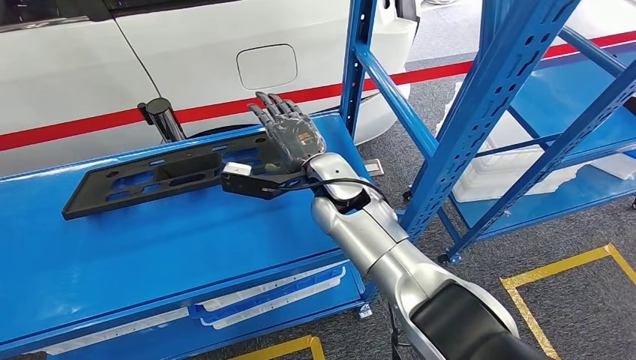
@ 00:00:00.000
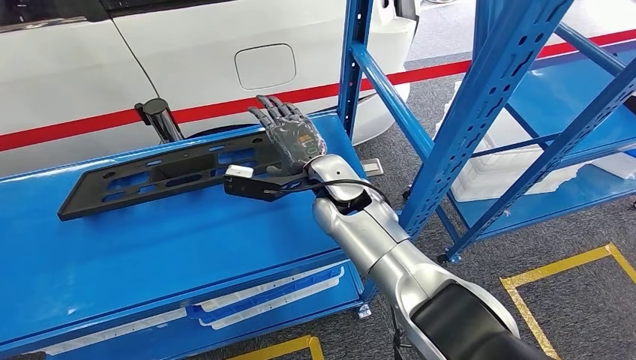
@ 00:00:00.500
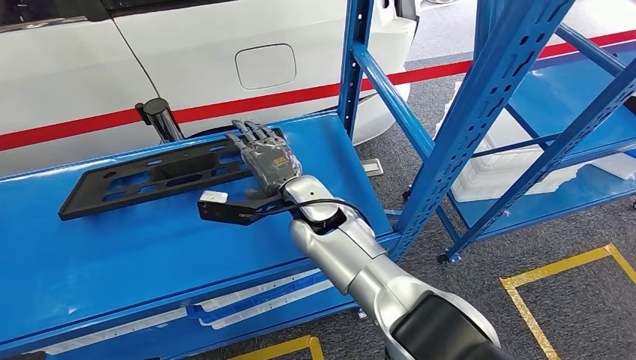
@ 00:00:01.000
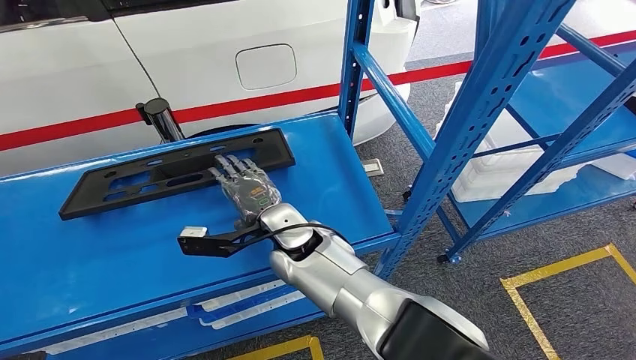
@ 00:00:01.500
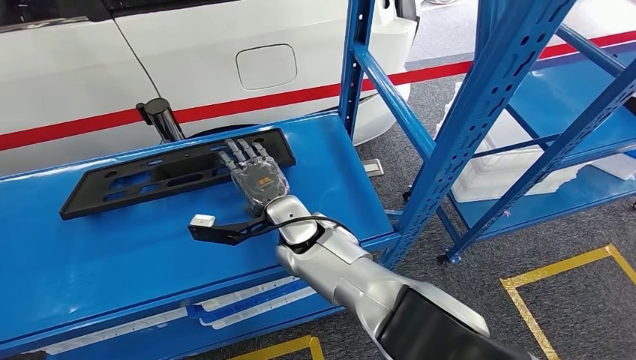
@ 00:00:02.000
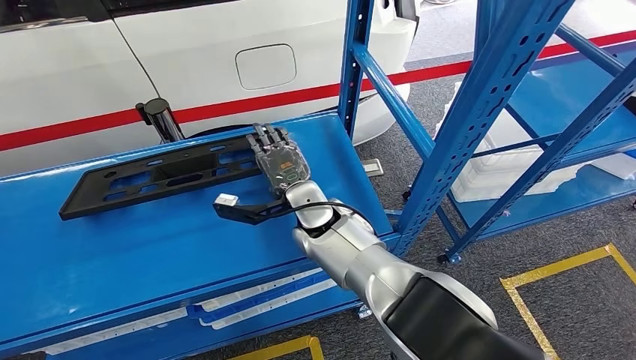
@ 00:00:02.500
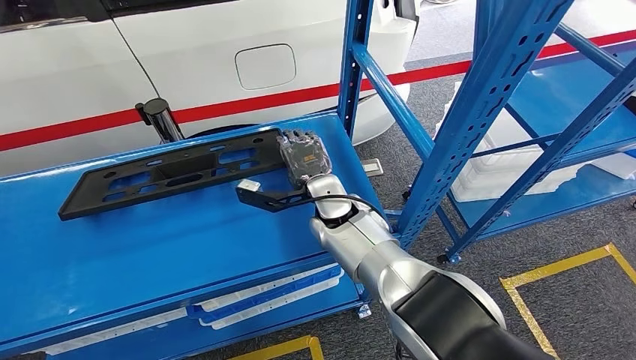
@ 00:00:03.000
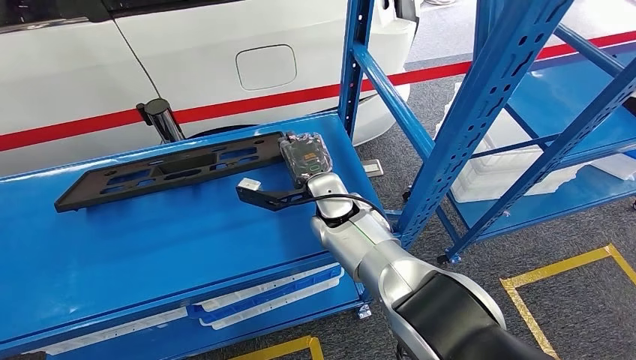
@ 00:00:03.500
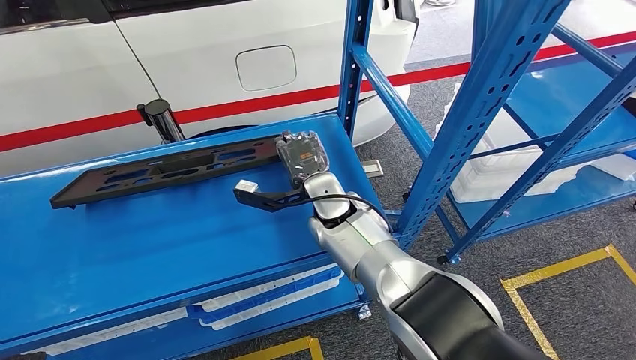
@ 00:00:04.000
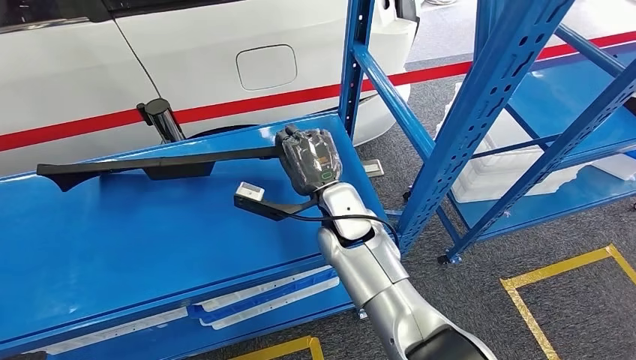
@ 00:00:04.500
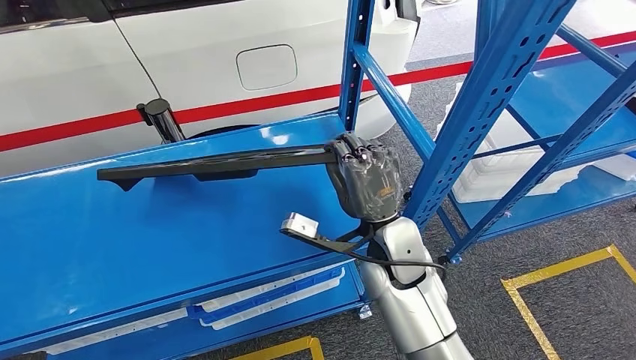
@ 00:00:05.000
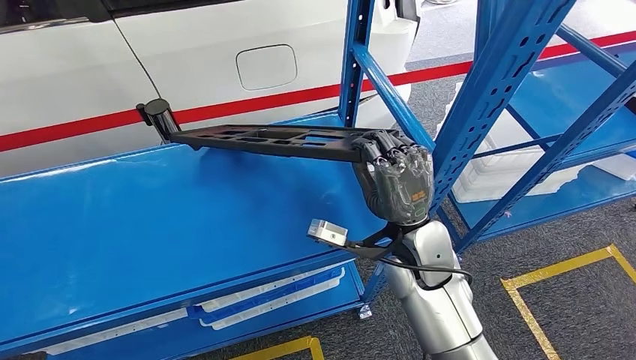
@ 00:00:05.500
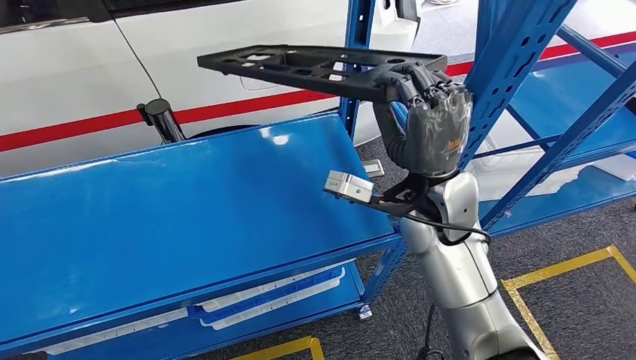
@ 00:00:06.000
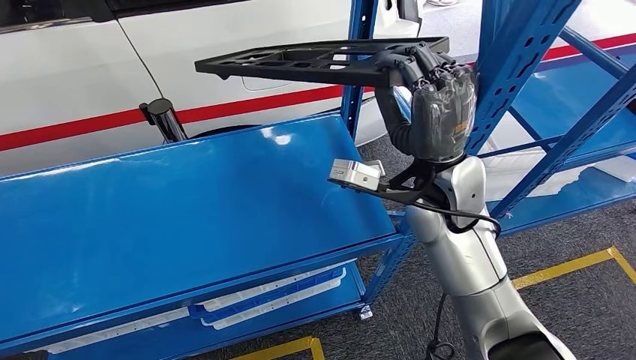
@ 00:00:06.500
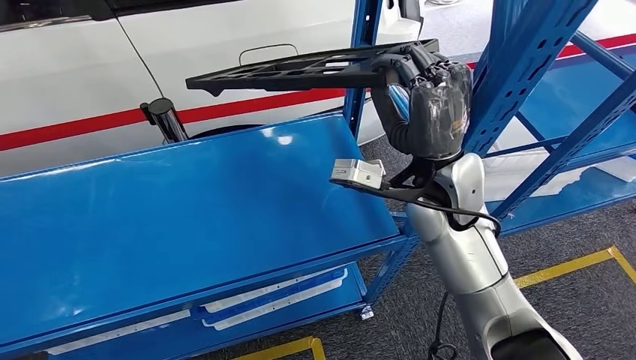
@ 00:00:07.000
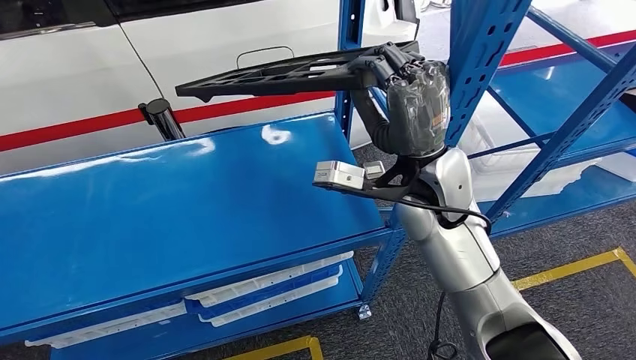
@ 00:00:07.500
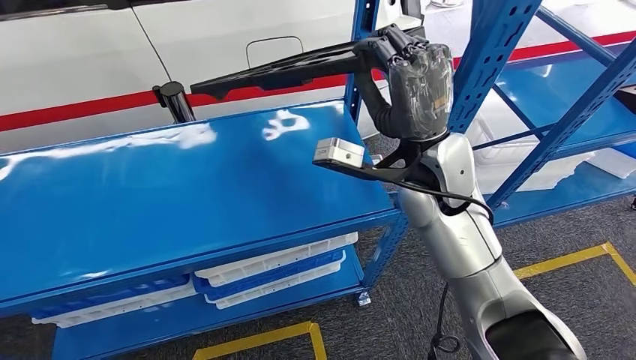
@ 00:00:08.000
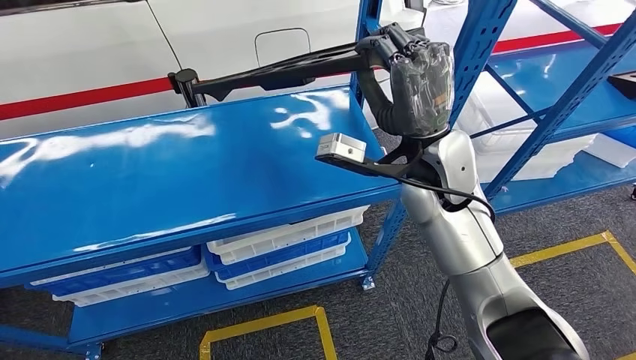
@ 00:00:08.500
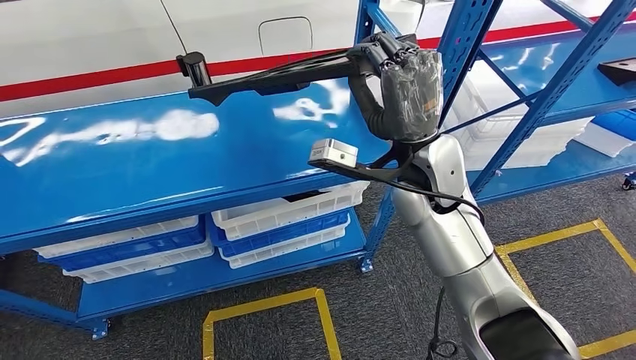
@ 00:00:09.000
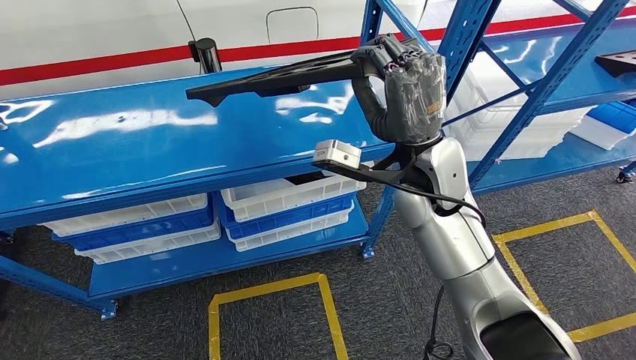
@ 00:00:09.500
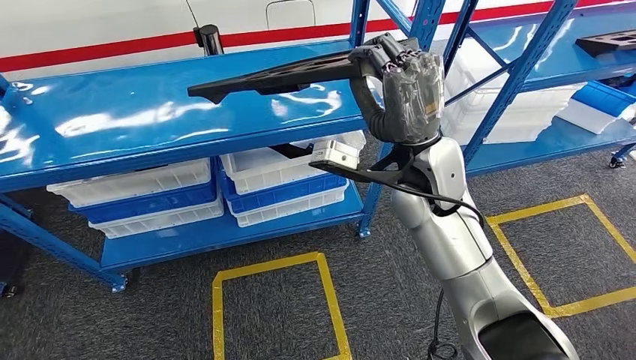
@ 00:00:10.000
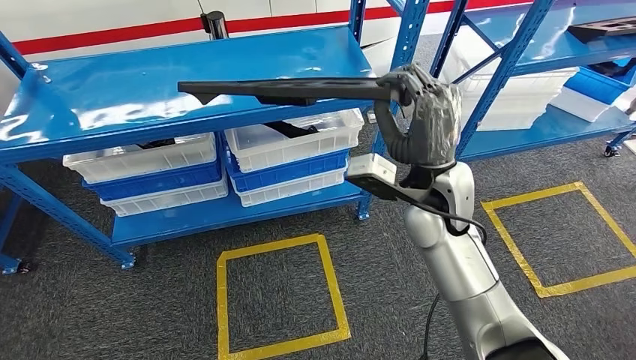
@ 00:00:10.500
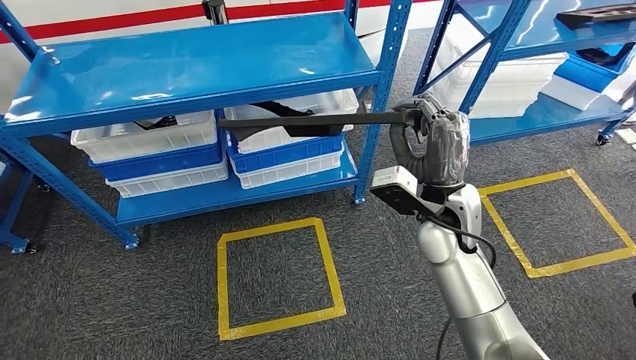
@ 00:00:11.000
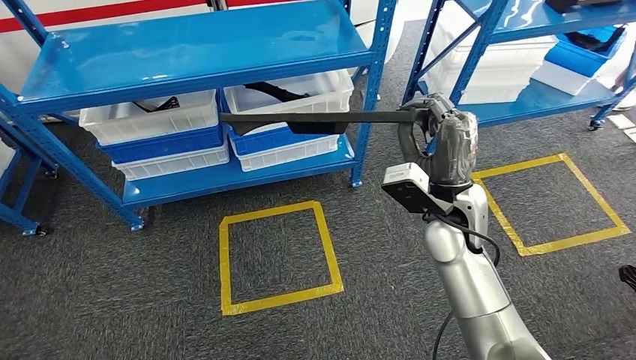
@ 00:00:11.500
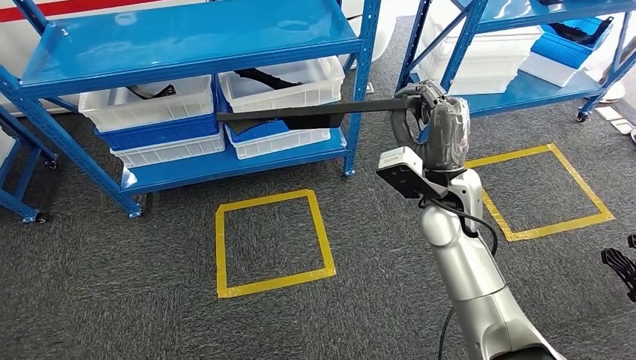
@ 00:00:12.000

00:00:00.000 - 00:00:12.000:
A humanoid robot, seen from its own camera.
Step, 00:00:00.000 - 00:00:06.000: Pick up the large material from the shelf.
00:00:00.000 - 00:00:02.000: The right hand goes some 10 cm to the left and downward.
00:00:02.000 - 00:00:04.000: The right hand shifts approximately 5 cm to the right.

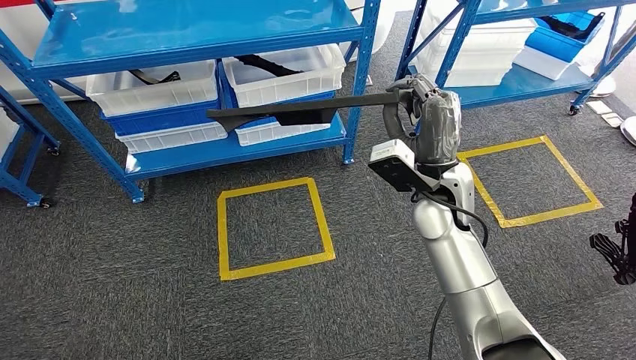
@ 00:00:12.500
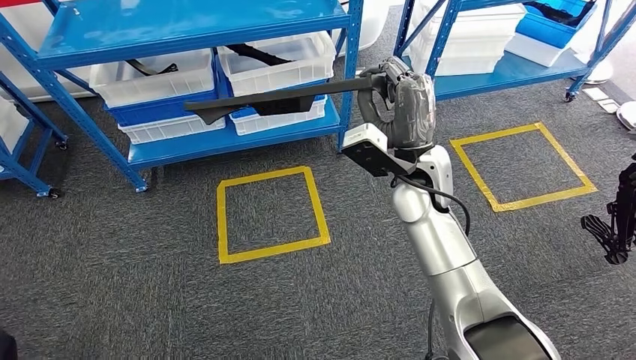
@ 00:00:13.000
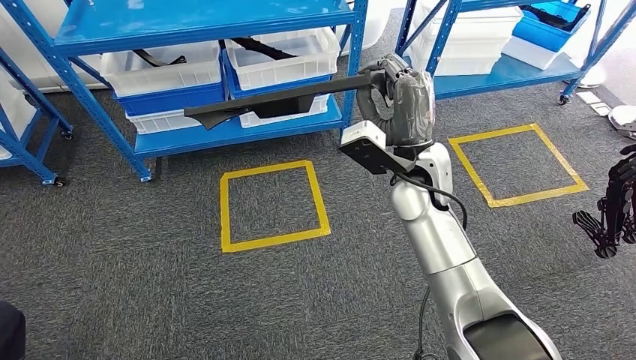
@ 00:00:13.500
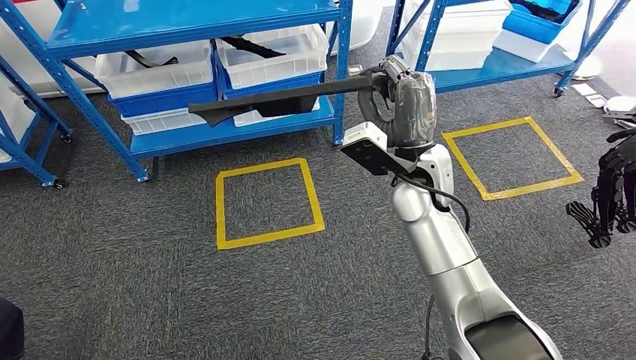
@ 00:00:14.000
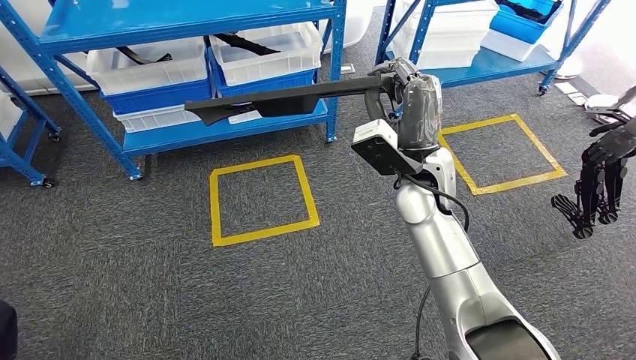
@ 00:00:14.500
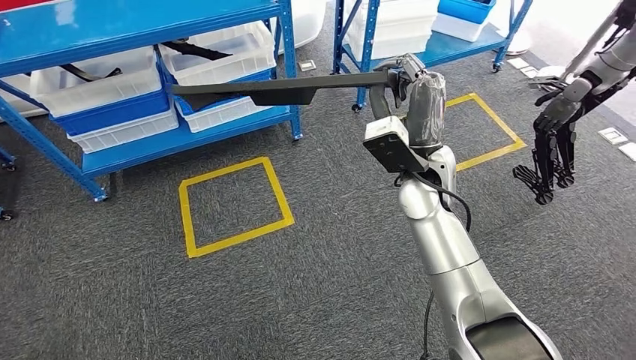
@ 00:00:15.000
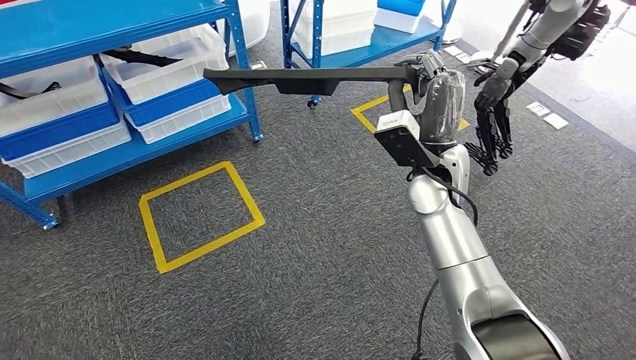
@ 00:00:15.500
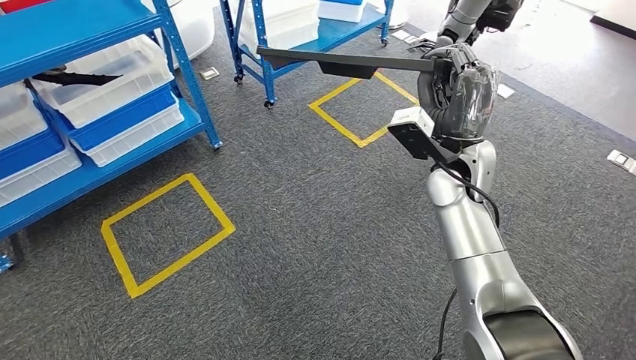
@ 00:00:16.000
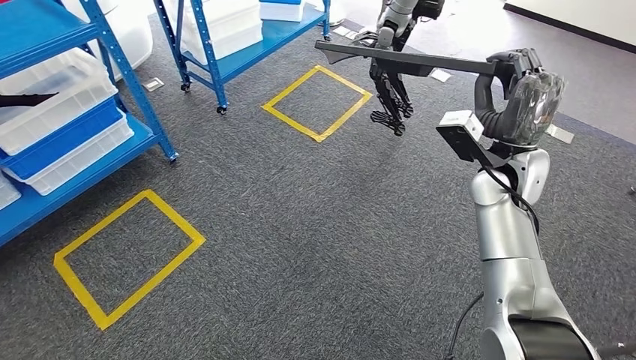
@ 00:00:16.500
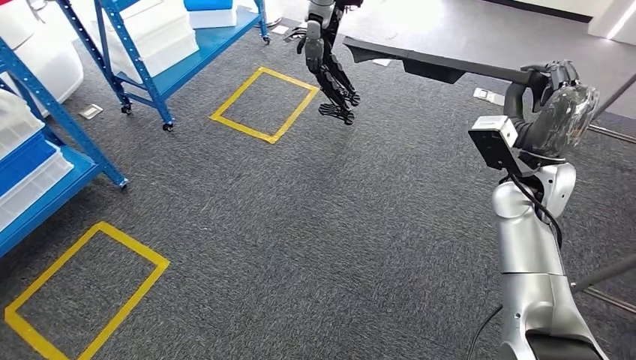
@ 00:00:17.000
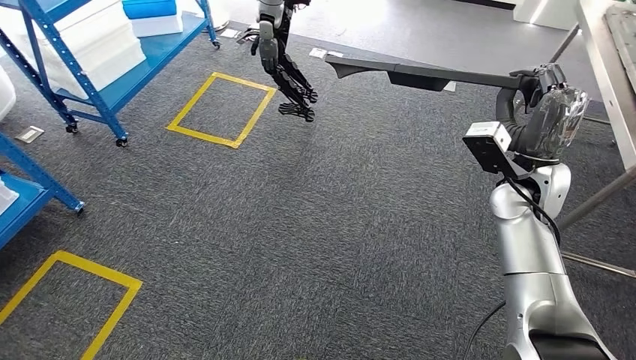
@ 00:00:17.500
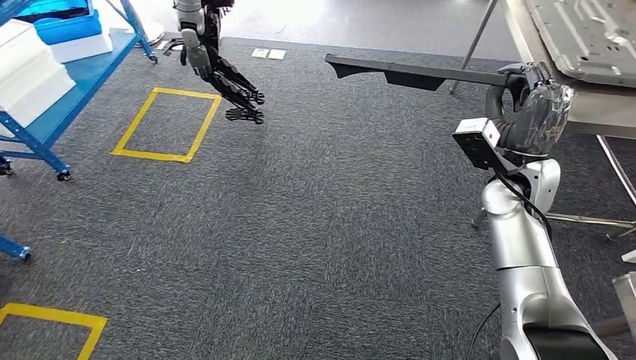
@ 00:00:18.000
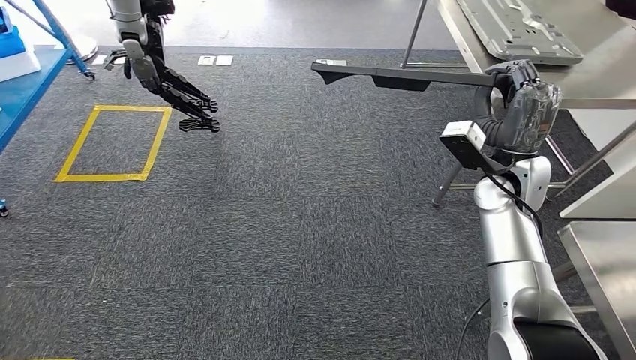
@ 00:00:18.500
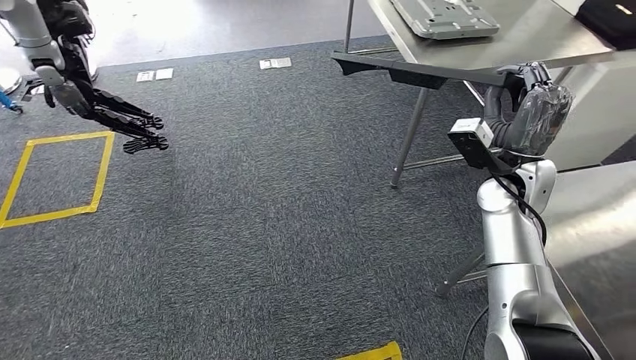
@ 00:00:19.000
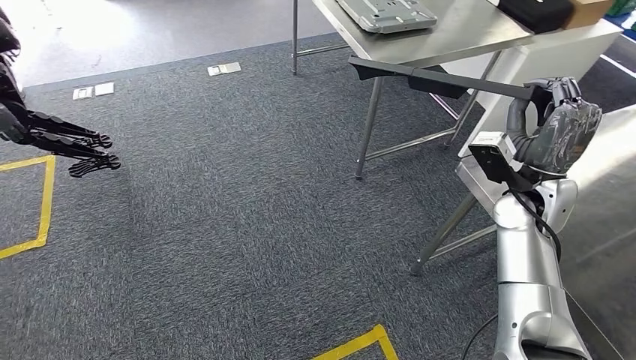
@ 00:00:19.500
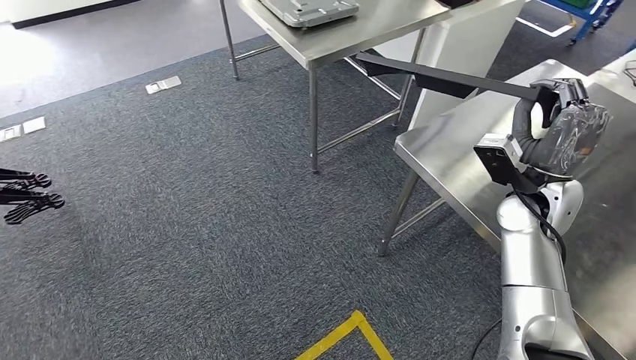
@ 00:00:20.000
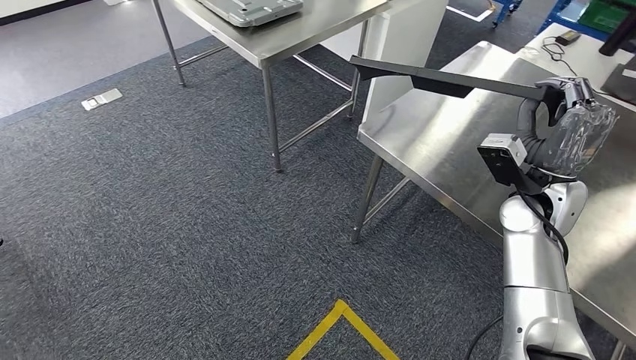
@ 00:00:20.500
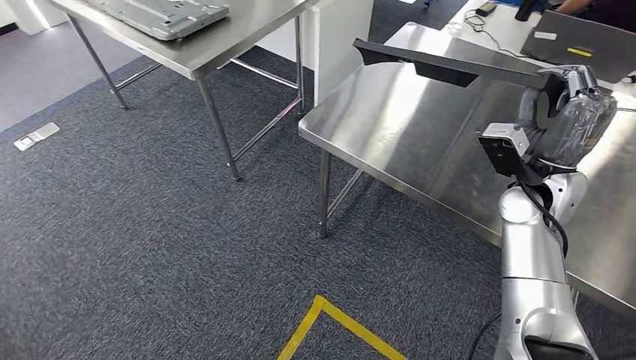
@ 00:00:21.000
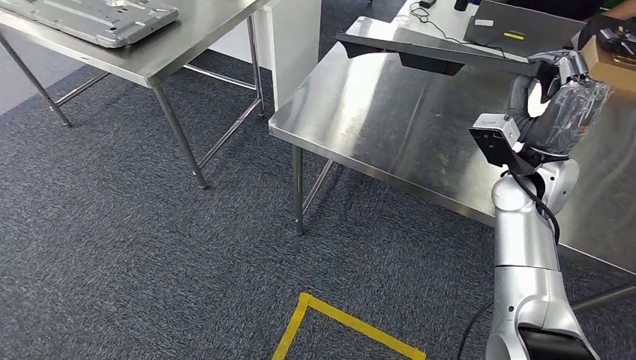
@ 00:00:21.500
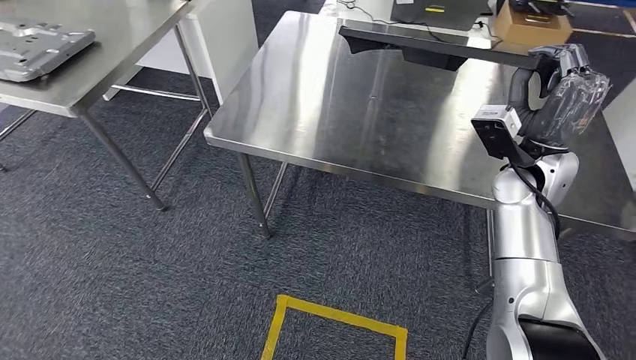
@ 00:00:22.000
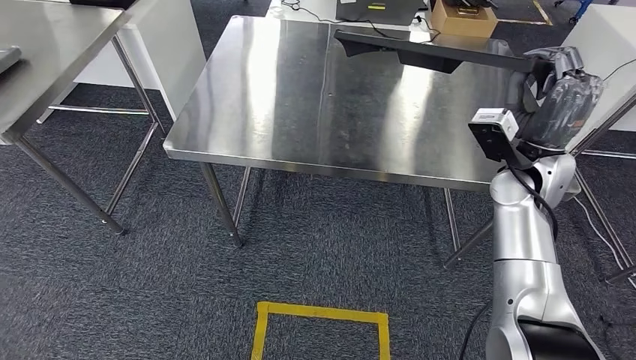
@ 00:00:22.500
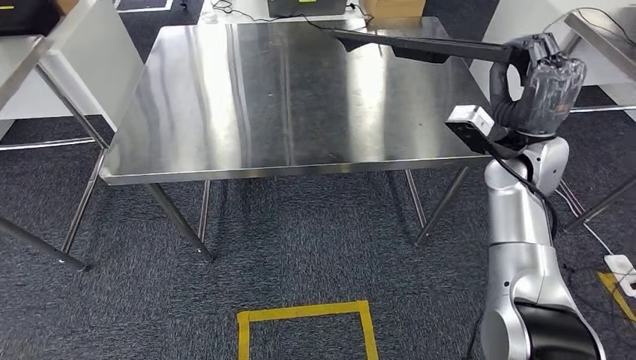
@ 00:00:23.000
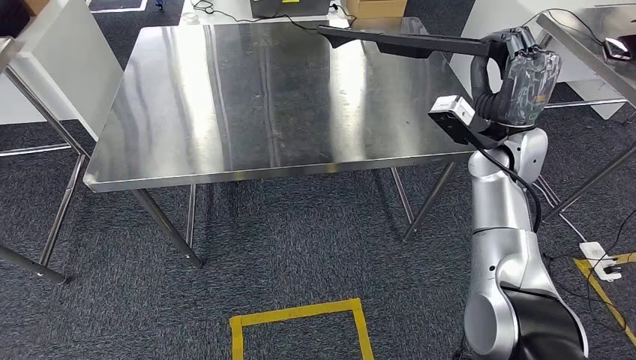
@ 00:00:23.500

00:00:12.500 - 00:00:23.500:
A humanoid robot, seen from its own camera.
Step, 00:00:12.500 - 00:00:21.000: Move the large material to the workbench.
